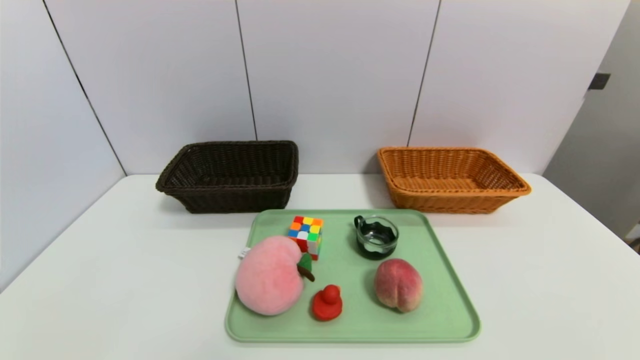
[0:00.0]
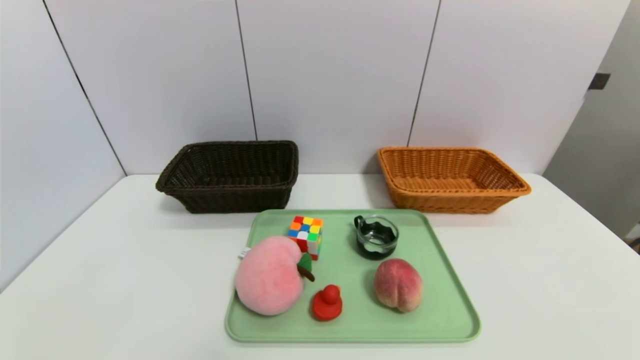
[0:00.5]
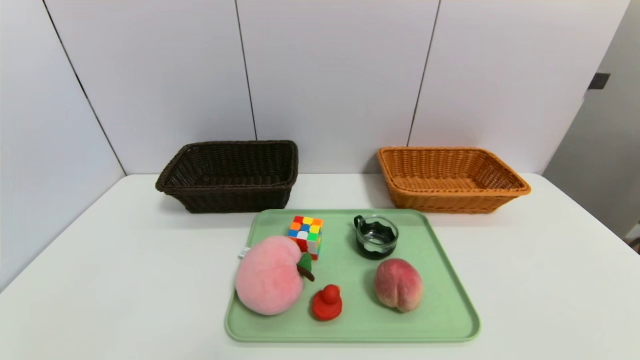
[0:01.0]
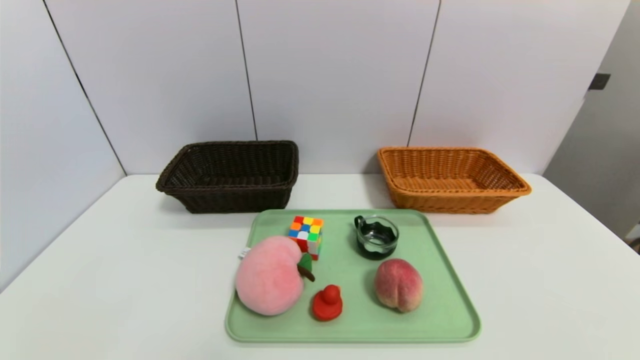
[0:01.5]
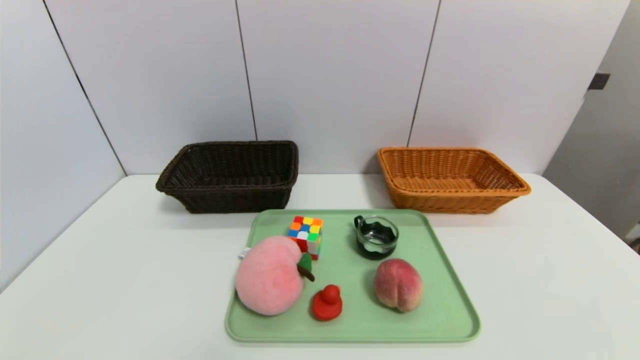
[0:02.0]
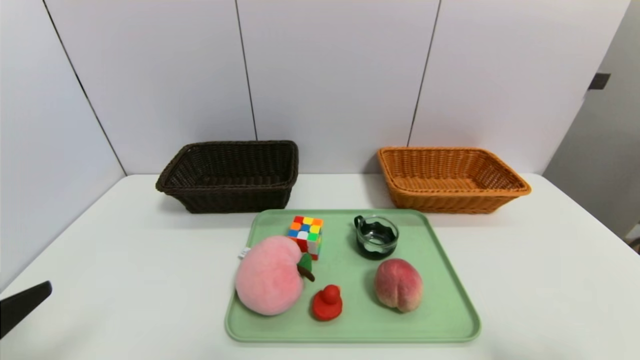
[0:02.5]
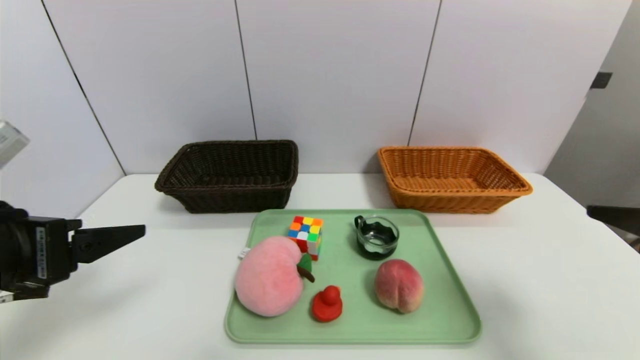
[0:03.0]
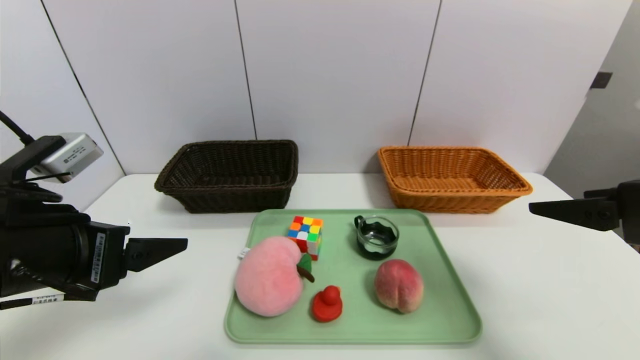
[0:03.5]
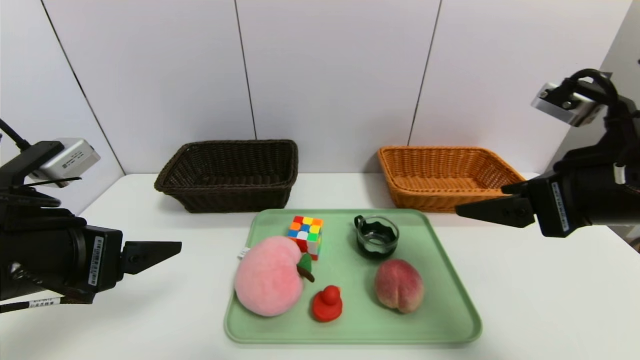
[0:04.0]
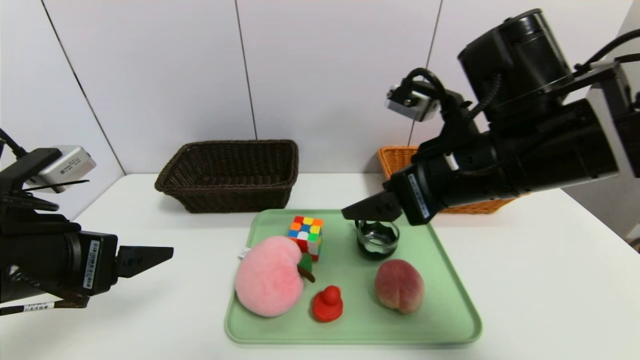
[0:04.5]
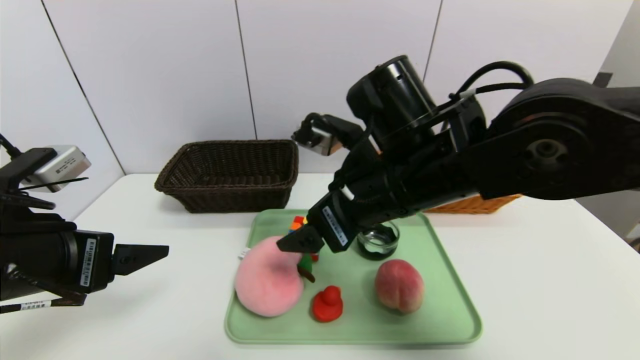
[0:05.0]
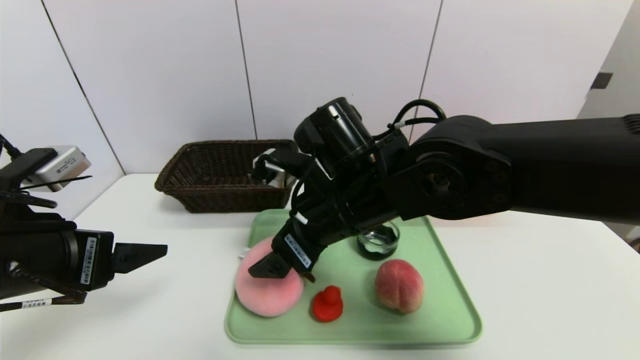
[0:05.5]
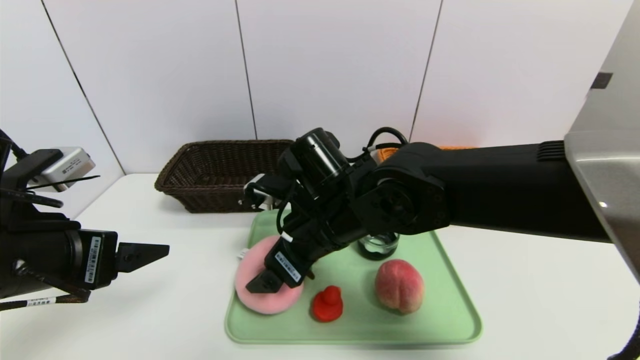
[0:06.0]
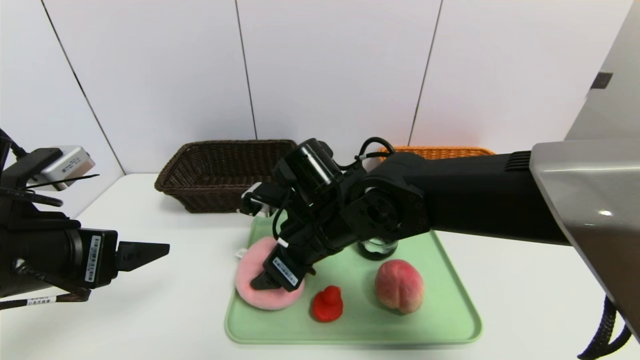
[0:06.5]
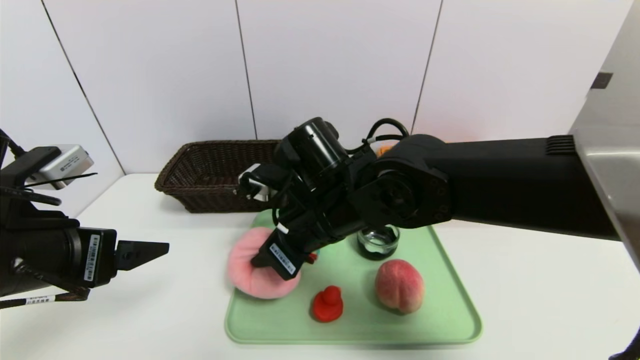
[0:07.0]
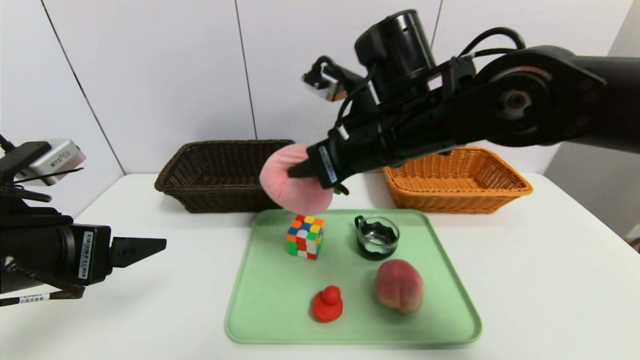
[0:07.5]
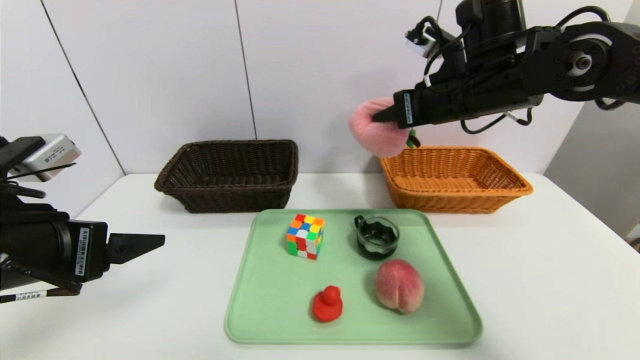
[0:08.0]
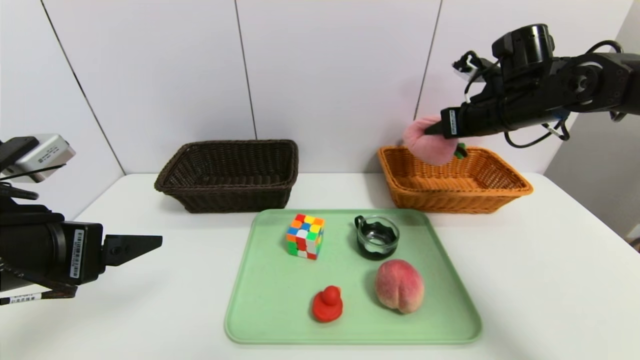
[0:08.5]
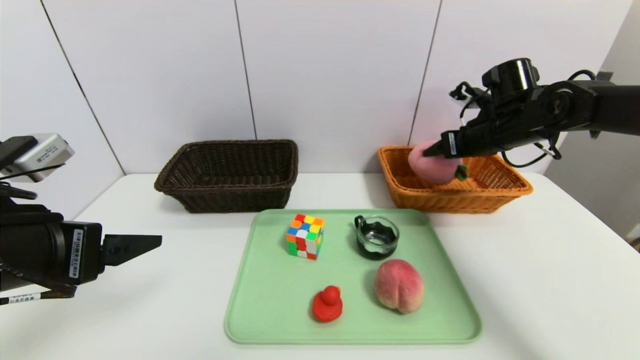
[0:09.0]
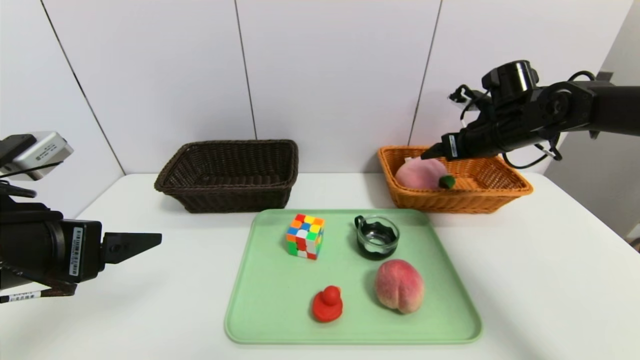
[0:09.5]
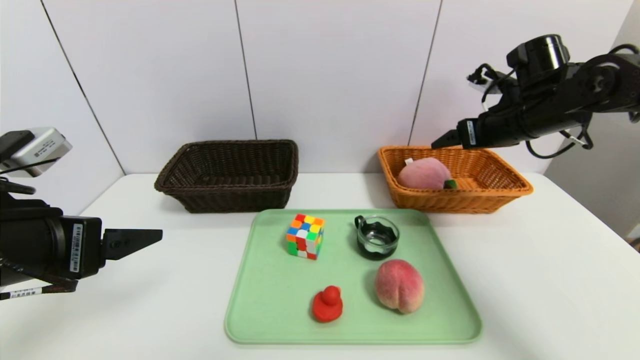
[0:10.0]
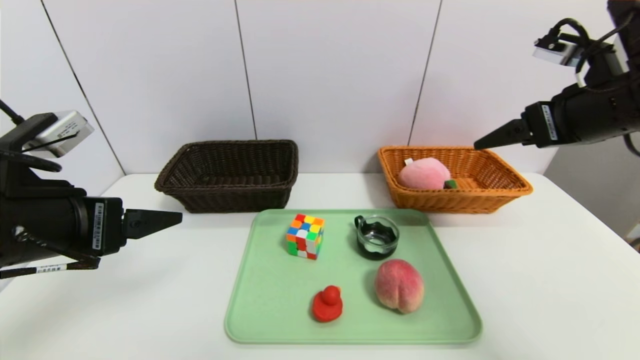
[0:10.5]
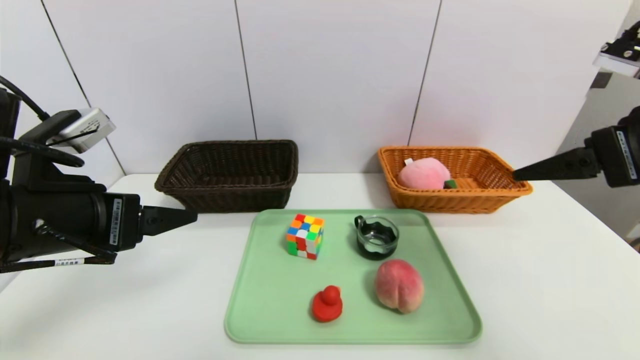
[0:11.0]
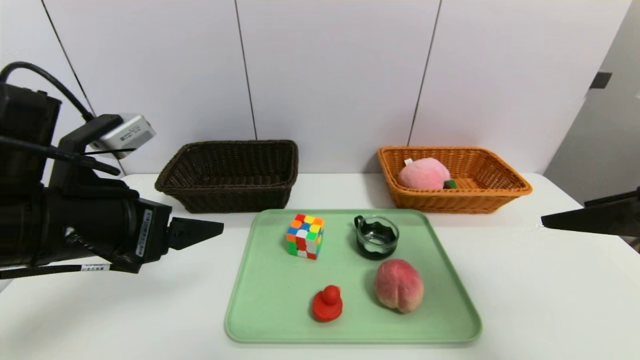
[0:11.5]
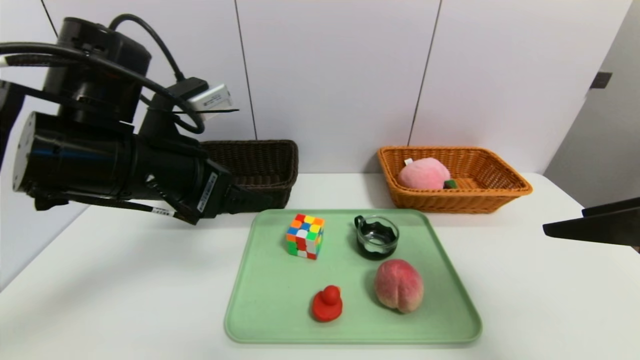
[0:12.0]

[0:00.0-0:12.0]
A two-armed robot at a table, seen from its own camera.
Task of the whole recording: place the food in the right basket with the right gripper, and place the non food items in the left basket with the left gripper.
Step, 0:00.0 to 0:09.5: Grasp the peach doll and put it in the right basket.
0:02.0 to 0:04.0: The right gripper is displaced forward, upward and to the left by about 30 cm; the left gripper shifts approximately 20 cm forward and upward.
0:04.0 to 0:06.0: The right gripper shifts about 25 cm to the left and downward.
0:06.0 to 0:08.0: The right gripper moves to the right, upward and forward, approximately 25 cm, and closes.
0:08.0 to 0:10.0: The right gripper moves to the right, about 10 cm, and opens its fingers.
0:10.0 to 0:12.0: The right gripper moves backward, some 25 cm; the left gripper moves to the right and forward, some 10 cm.

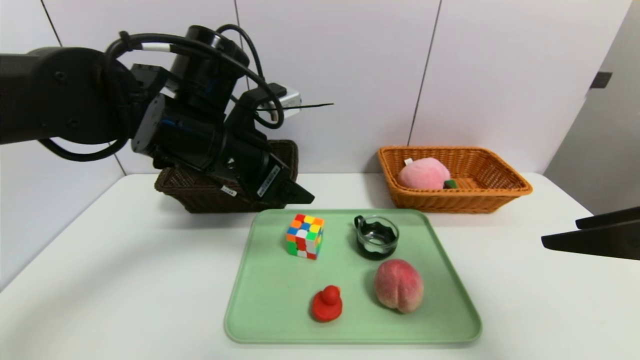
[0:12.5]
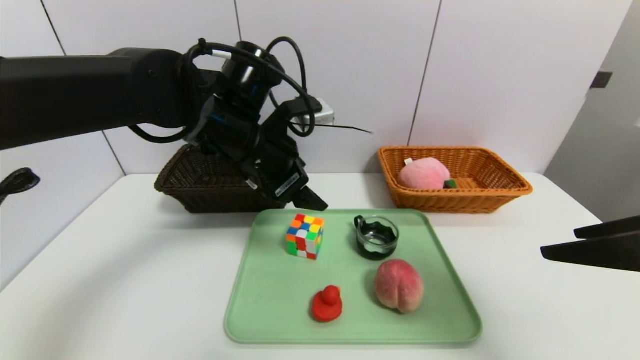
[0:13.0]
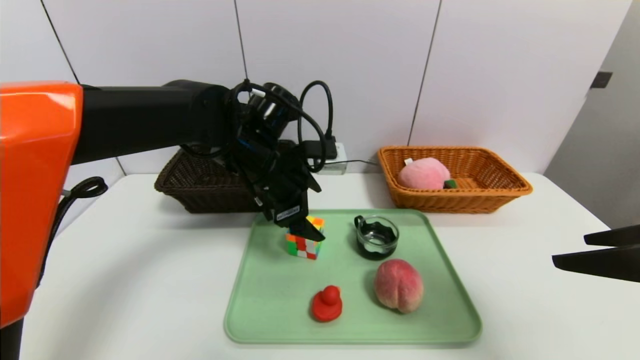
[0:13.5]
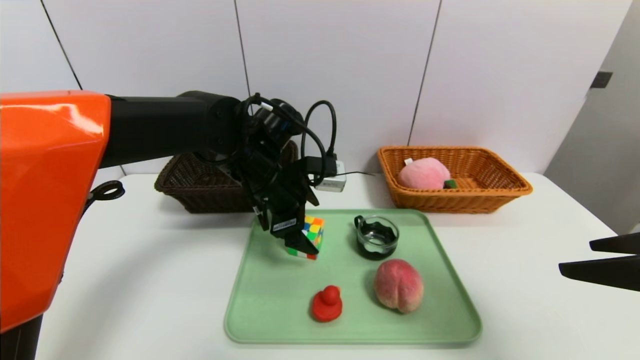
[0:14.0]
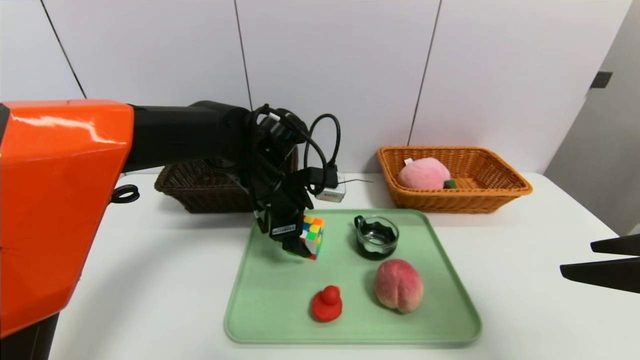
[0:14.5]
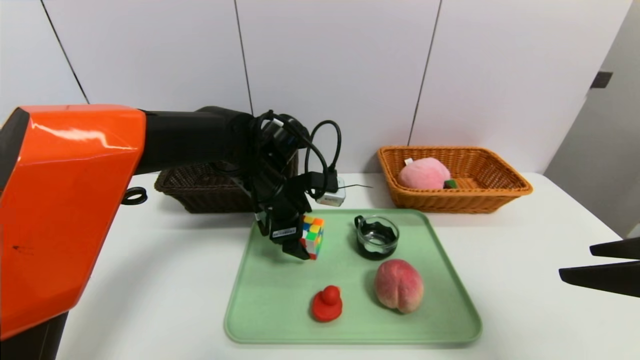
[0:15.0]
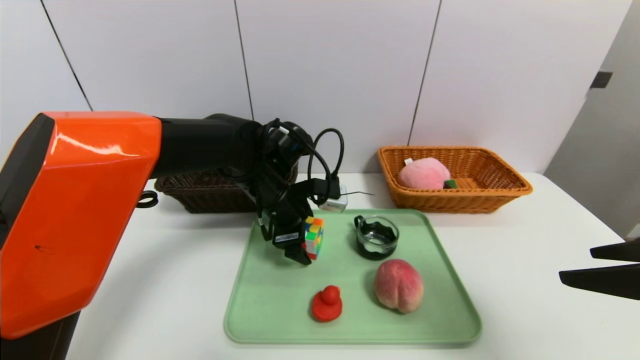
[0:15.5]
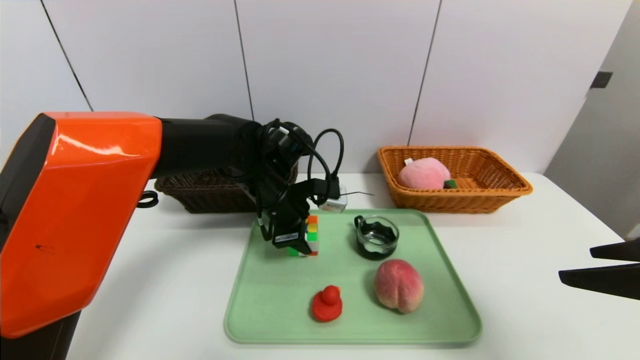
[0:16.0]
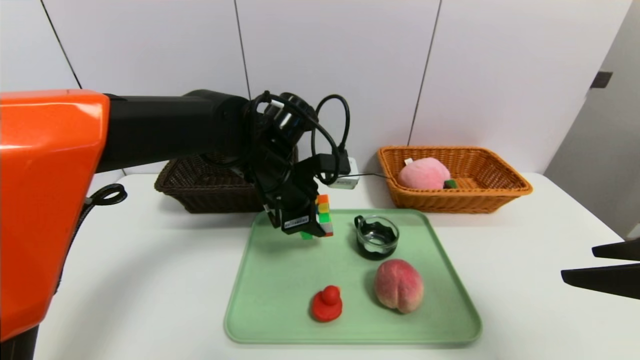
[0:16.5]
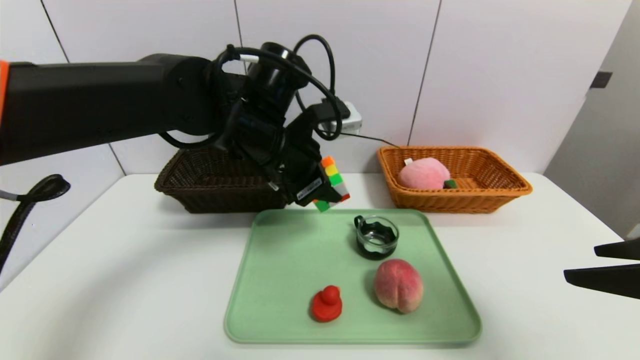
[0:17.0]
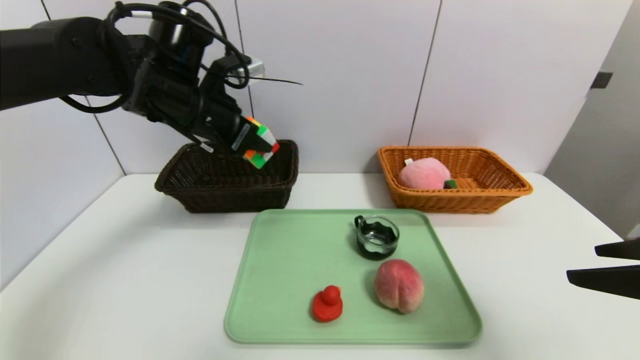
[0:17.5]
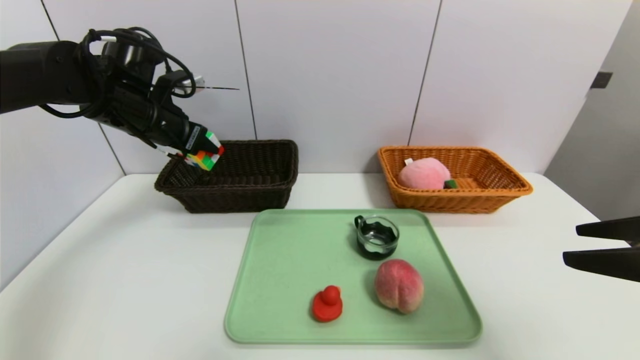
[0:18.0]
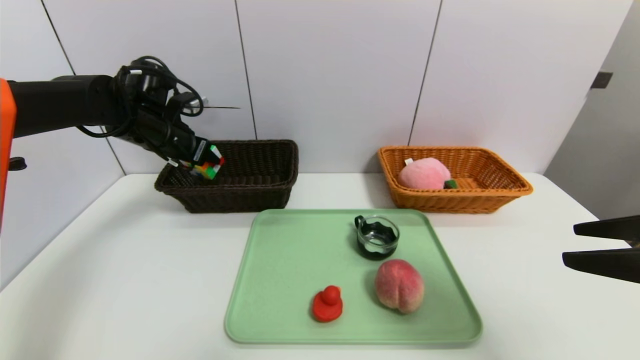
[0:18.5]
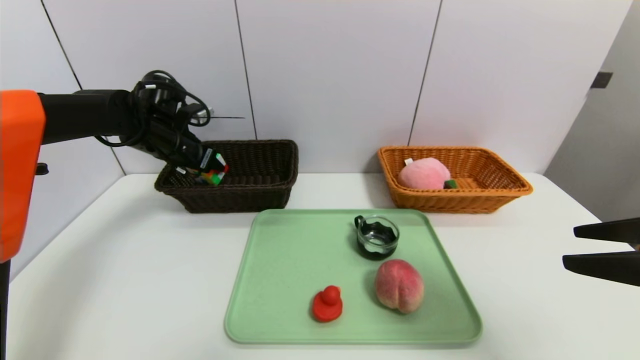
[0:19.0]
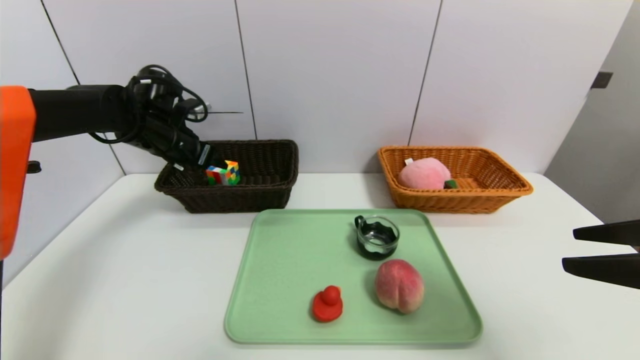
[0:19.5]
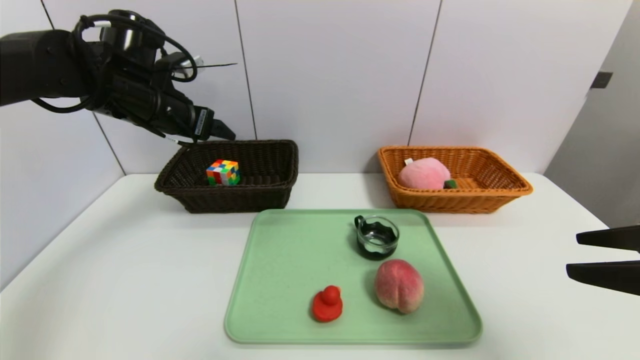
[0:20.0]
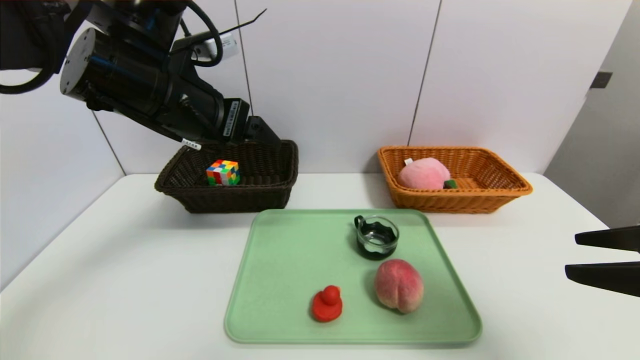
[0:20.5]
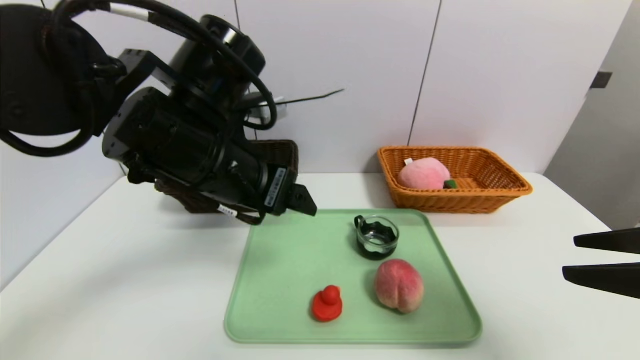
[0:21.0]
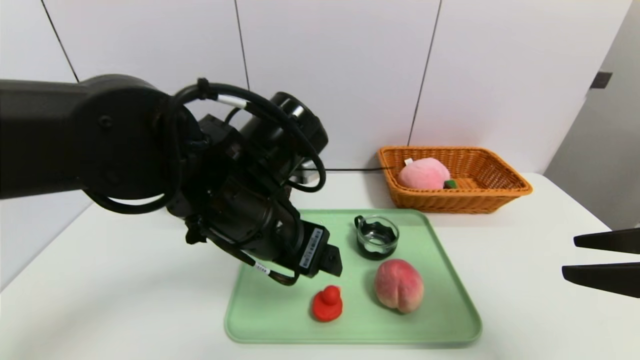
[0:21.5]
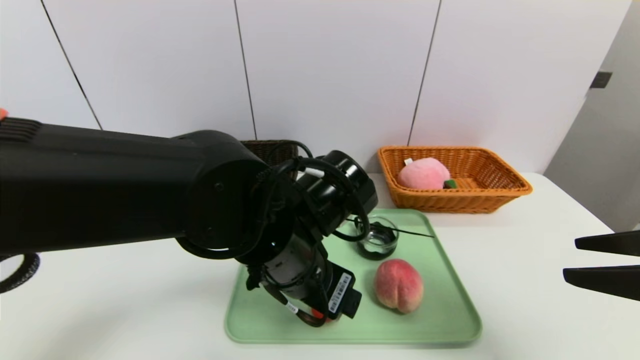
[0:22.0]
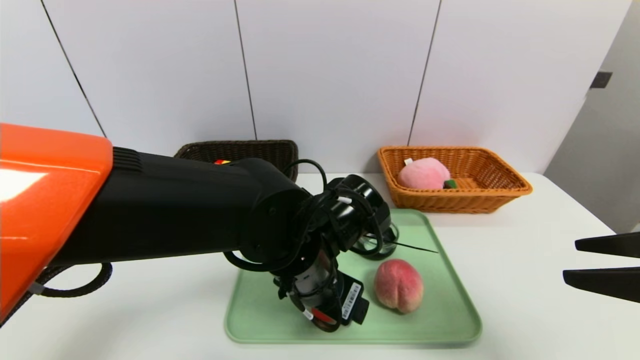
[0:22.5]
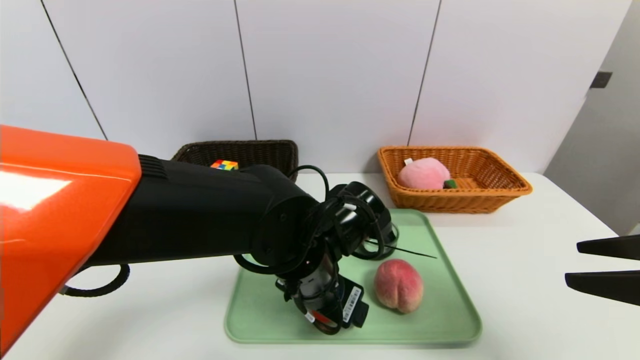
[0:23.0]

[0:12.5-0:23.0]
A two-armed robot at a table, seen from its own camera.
Task of the whole recording: place the food in the right basket with the right gripper, and place the non food items in the left basket with the left gripper.
Step, 0:12.5 to 0:19.5: Grasp the rubiks cube and put it in the left basket.
0:12.5 to 0:14.5: The left gripper heads downward and forward, covering some 10 cm.
0:14.5 to 0:16.5: The left gripper closes up.
0:16.5 to 0:19.0: The left gripper moves to the left and forward, approximately 25 cm.
0:19.0 to 0:21.0: The left gripper moves backward and to the right, approximately 25 cm, and opens.
0:21.0 to 0:23.0: The left gripper goes about 15 cm downward and to the right.
